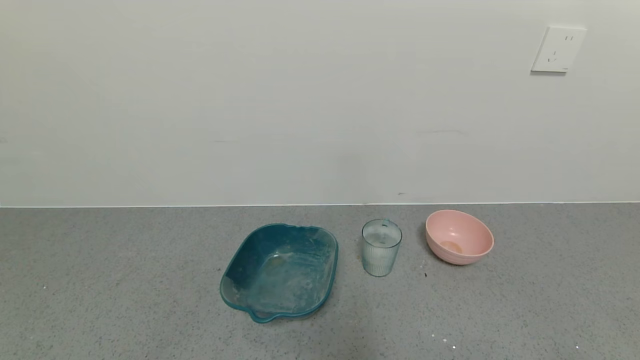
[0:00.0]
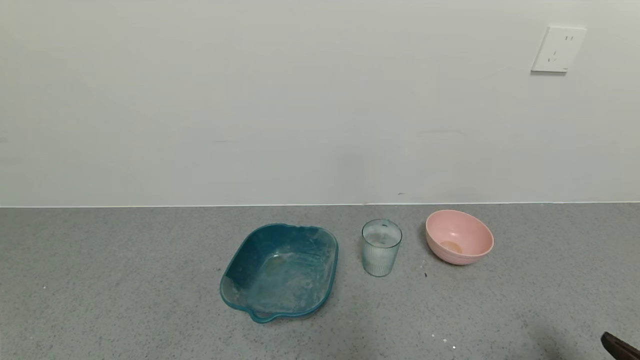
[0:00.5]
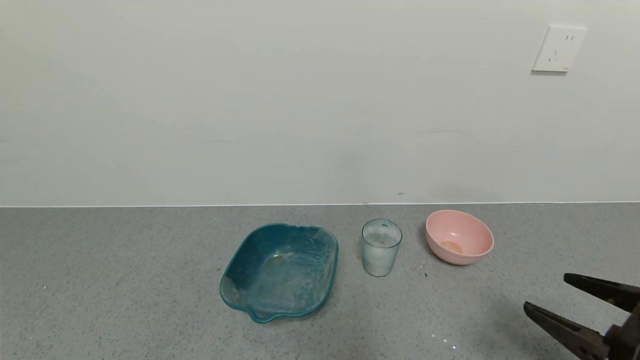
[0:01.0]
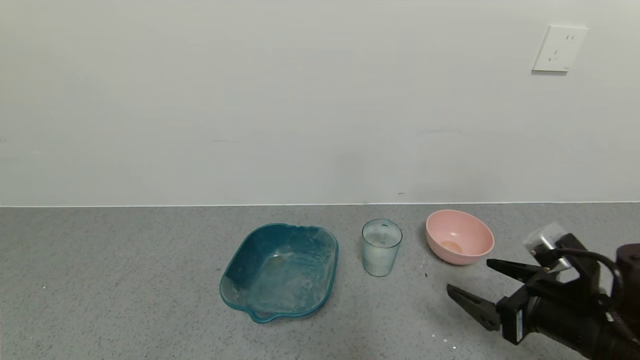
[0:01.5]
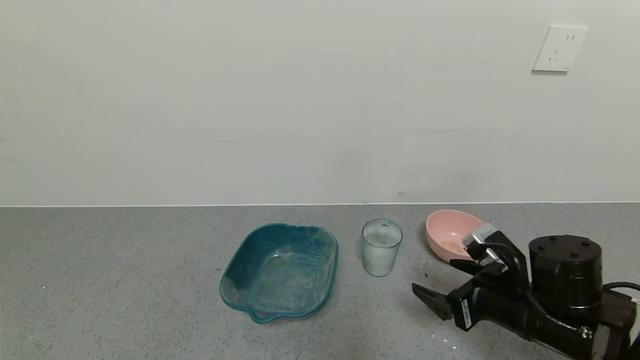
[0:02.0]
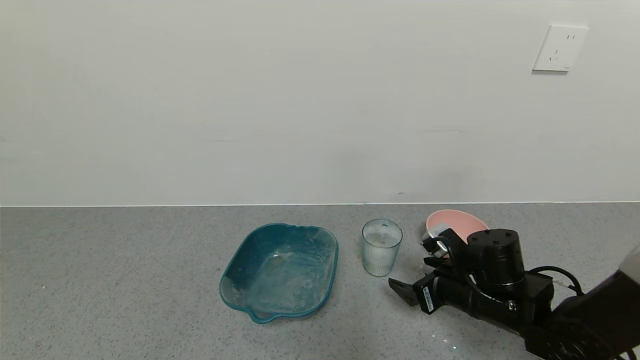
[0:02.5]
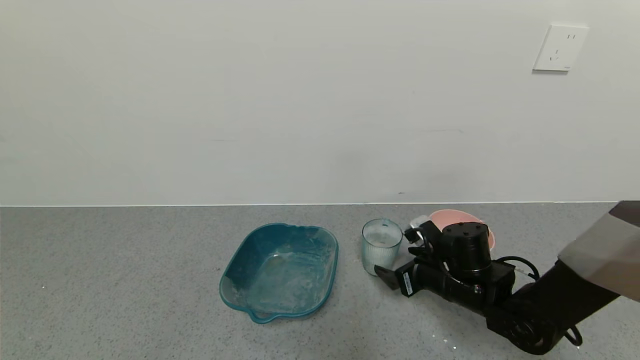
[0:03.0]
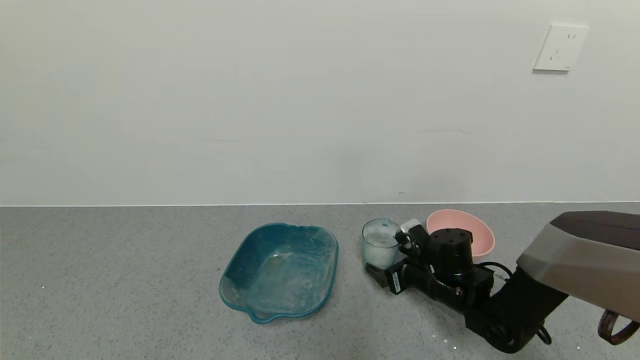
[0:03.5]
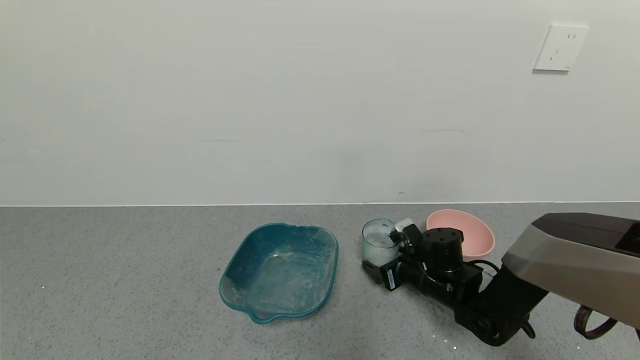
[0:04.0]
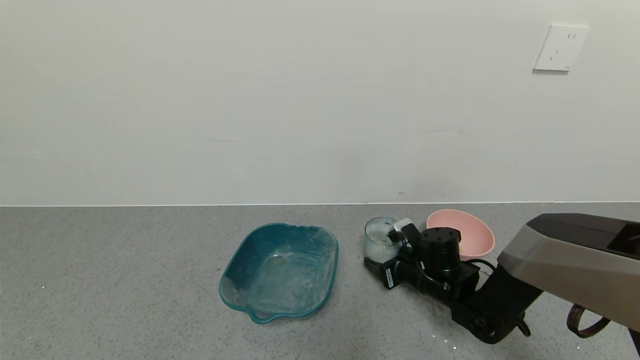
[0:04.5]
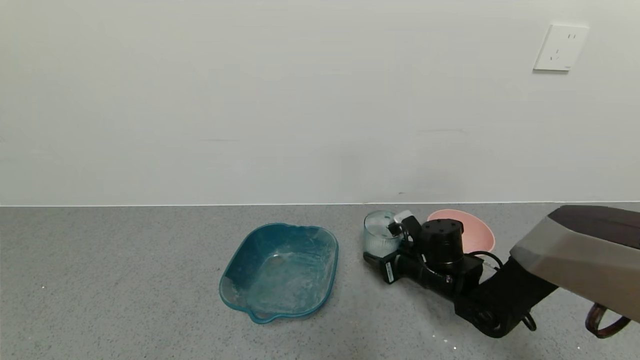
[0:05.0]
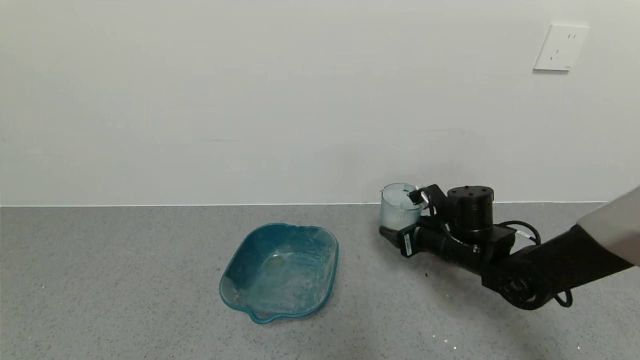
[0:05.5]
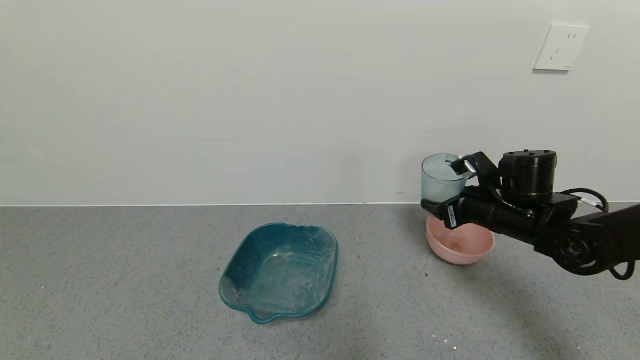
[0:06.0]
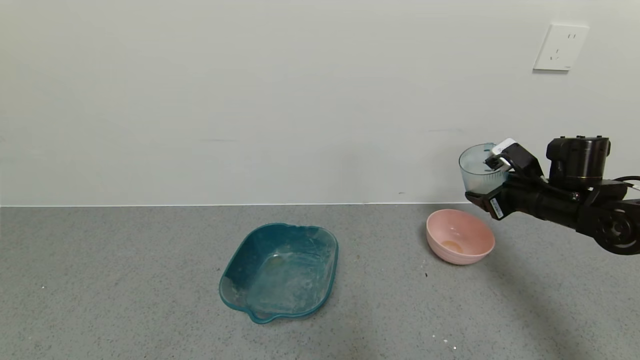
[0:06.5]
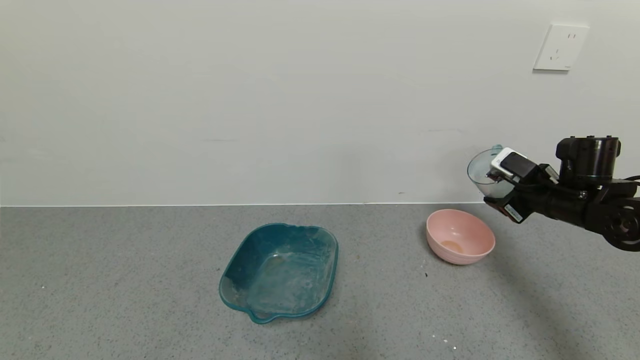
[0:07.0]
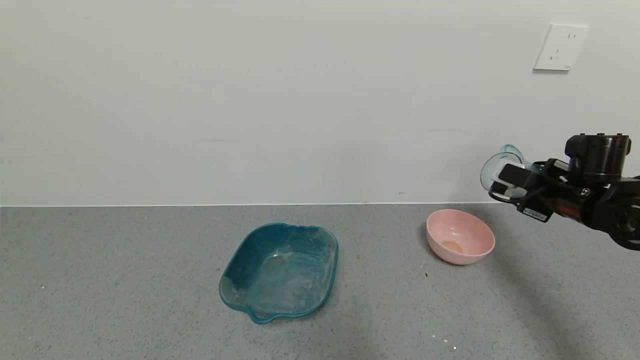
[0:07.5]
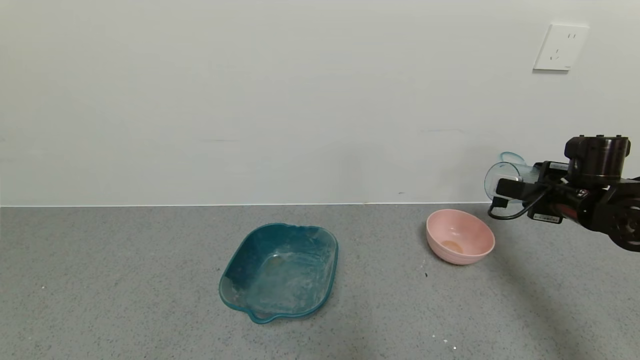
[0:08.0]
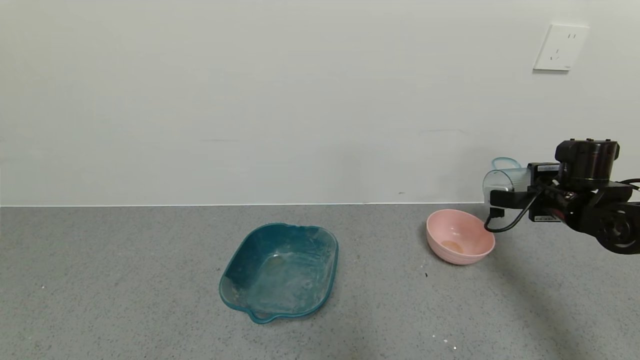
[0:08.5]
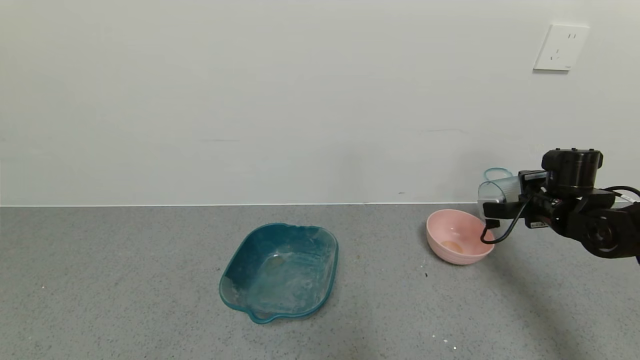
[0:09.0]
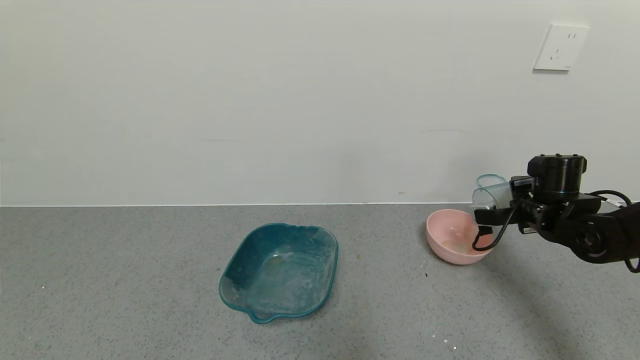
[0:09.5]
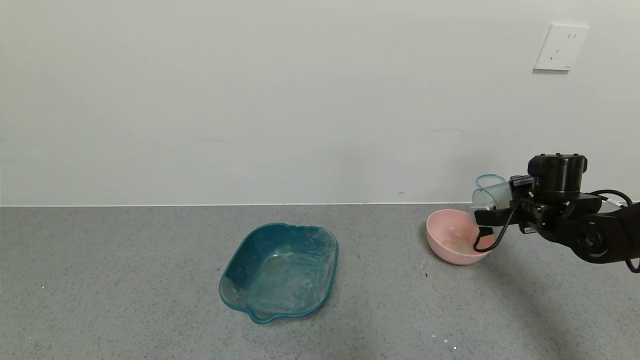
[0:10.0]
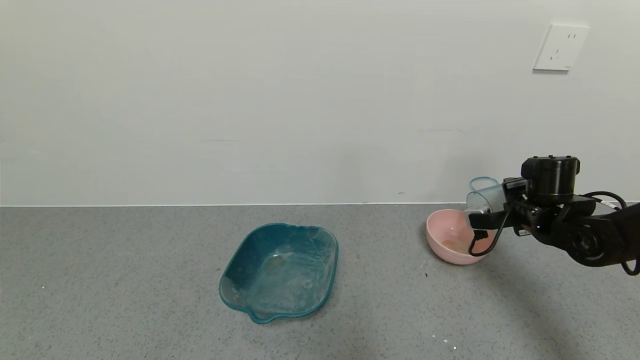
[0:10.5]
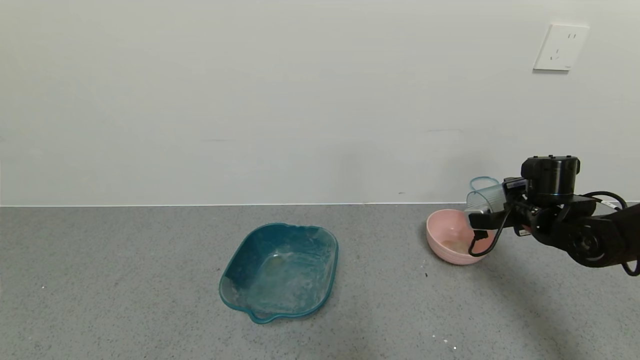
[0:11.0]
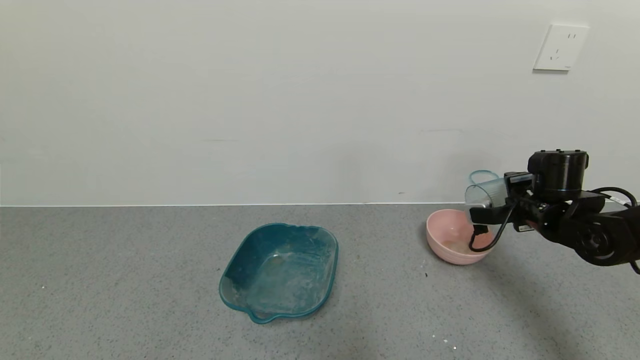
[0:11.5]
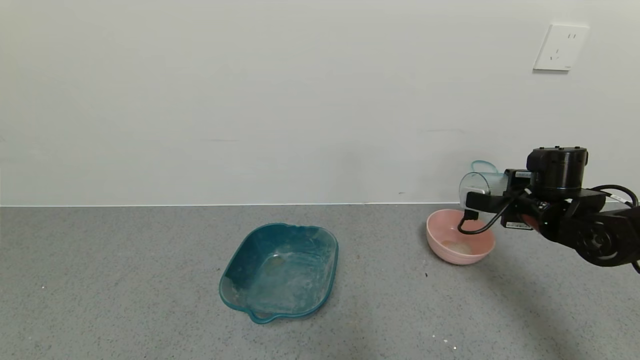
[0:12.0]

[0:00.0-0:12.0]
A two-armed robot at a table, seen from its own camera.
Task of the whole recording: use a gripper to pick up the cup and pour the powder into a bowl or tray.
Step, 0:00.0 to 0:04.0: Grasp the glass of powder with the right gripper.
0:00.0 to 0:02.0: The right gripper shifts roughly 25 cm forward and to the left.
0:02.0 to 0:04.0: The right gripper moves forward, downward and to the left, roughly 15 cm.
0:04.0 to 0:06.0: The right gripper travels upward and to the right by about 15 cm, and closes.
0:06.0 to 0:08.0: The right gripper travels to the right by some 10 cm.

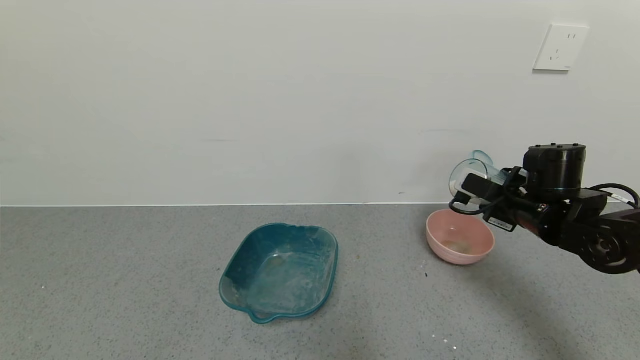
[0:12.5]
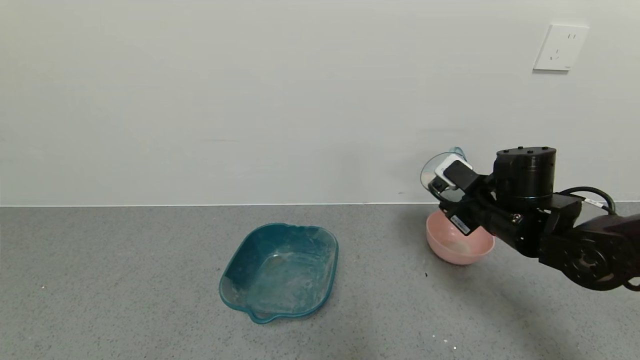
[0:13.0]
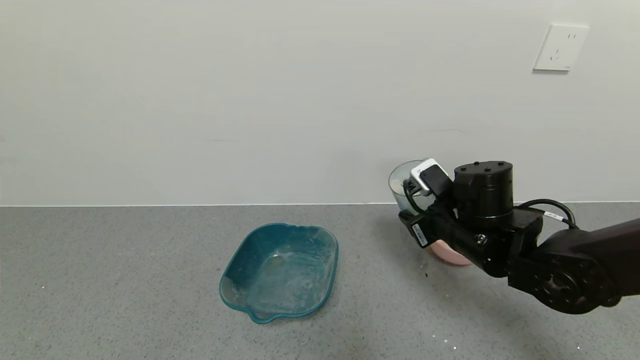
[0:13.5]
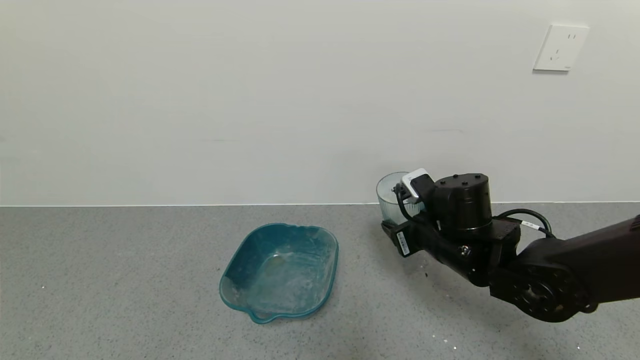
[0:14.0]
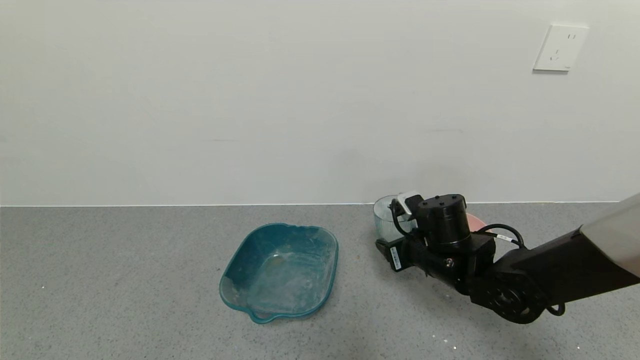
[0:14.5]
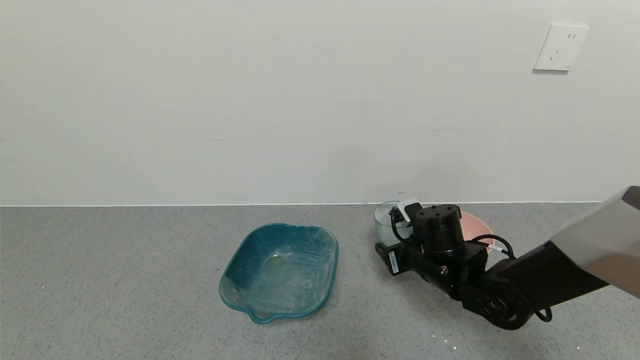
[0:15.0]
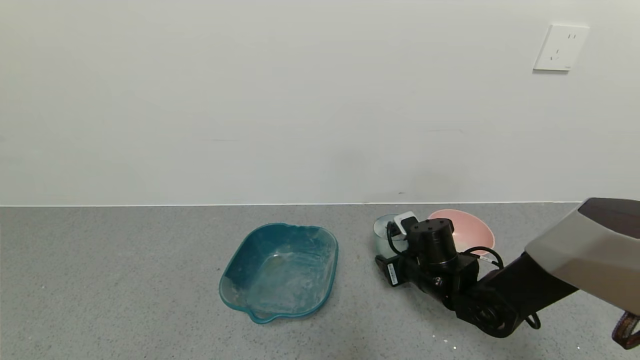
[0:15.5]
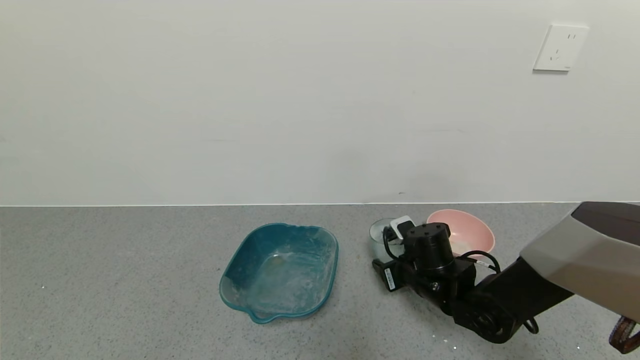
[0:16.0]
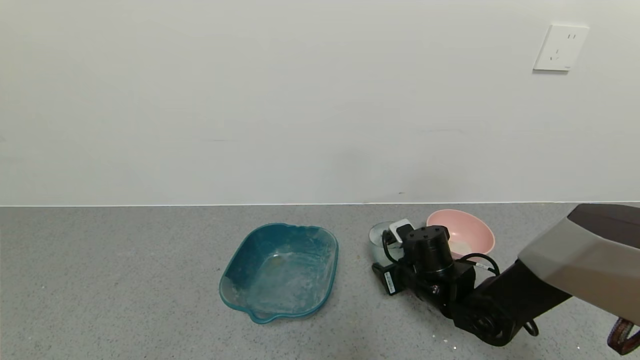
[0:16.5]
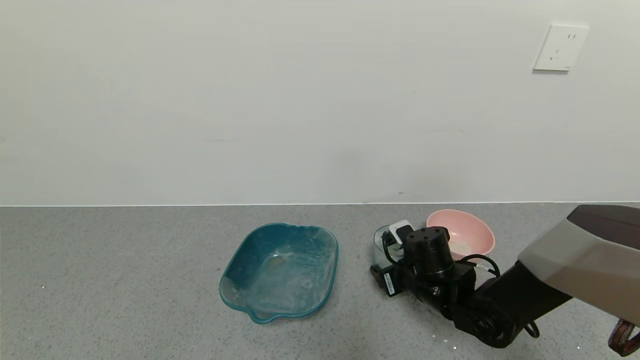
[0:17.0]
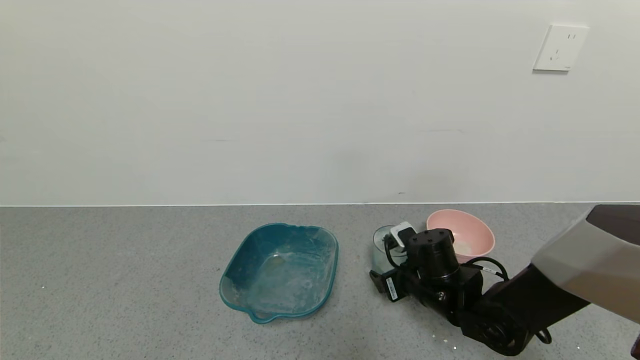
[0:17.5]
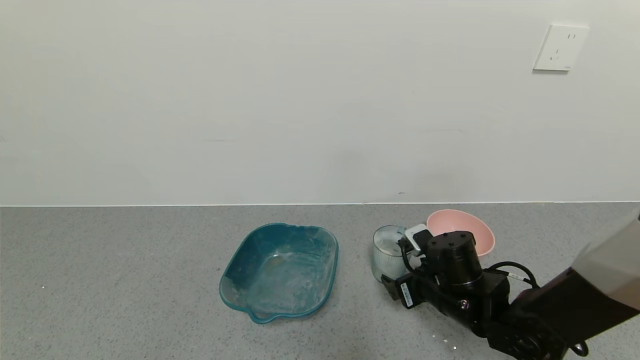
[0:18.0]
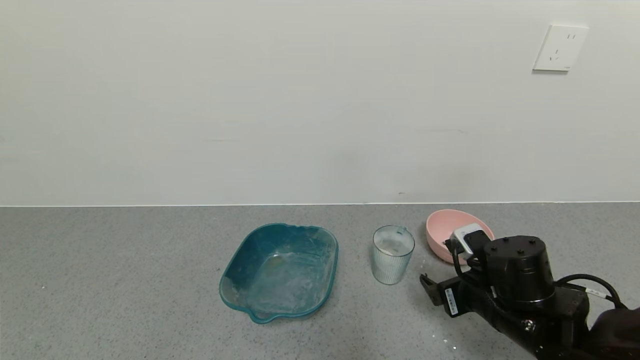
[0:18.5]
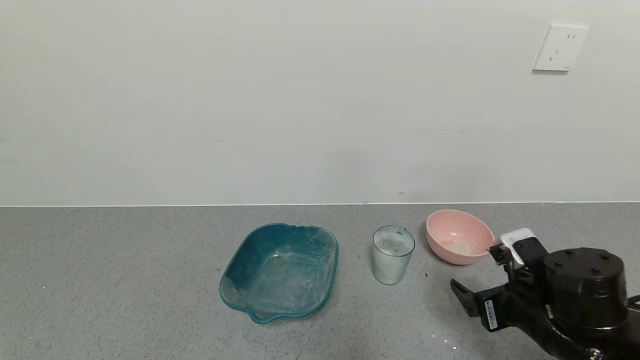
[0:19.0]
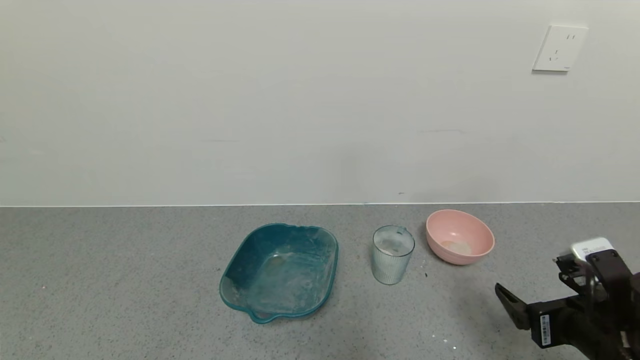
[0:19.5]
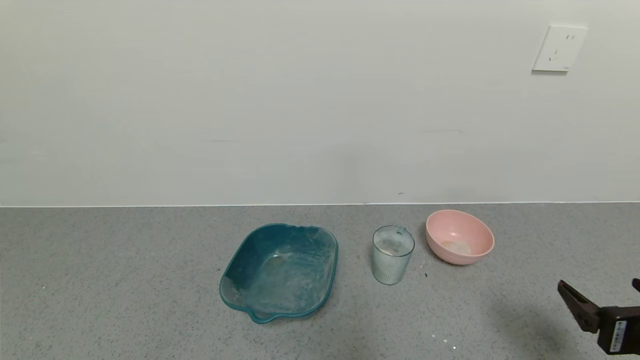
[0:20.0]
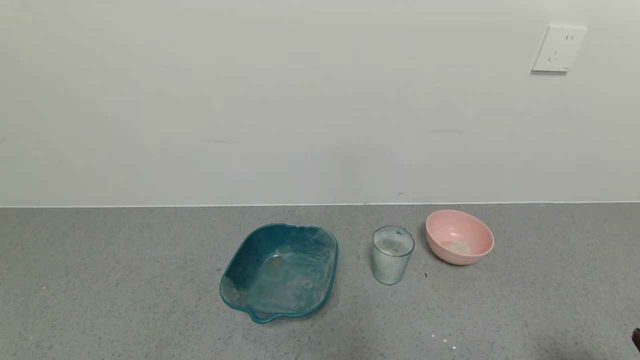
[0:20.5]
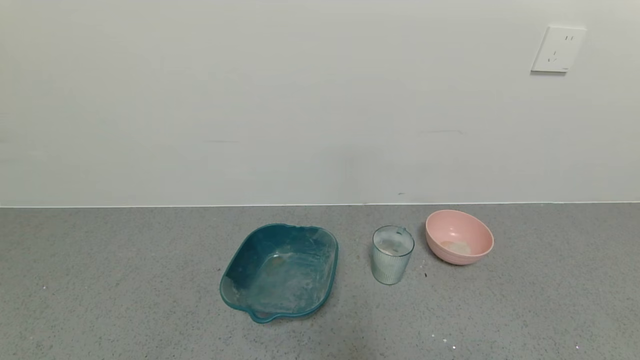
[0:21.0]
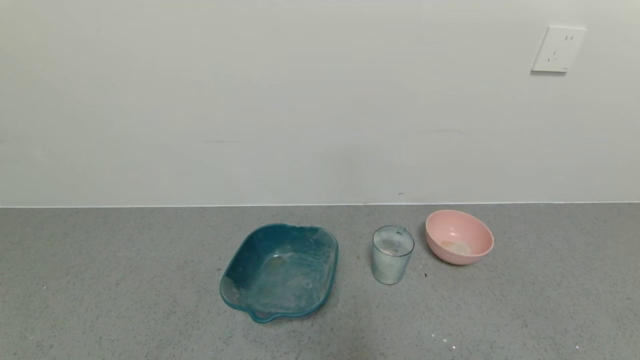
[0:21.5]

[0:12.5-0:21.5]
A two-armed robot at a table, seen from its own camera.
Task of the whole recording: use a gripper to pick up the cup and pour the powder into a bowl or tray.
Step, 0:12.5 to 0:18.0: Place the glass cup down with the right gripper.
0:12.5 to 0:14.5: The right gripper is displaced to the left and downward by roughly 15 cm.
0:14.5 to 0:17.0: The right gripper travels downward by roughly 5 cm, and opens up.
0:17.0 to 0:19.5: The right gripper travels backward, to the right and upward by roughly 25 cm, and opens its fingers.
0:19.5 to 0:21.5: The right gripper moves backward and to the right, approximately 20 cm.
